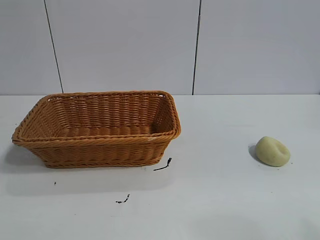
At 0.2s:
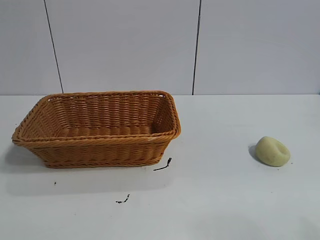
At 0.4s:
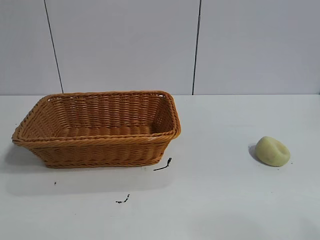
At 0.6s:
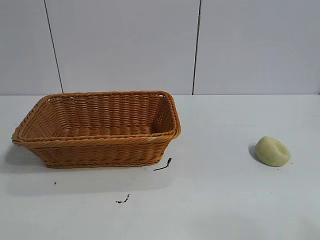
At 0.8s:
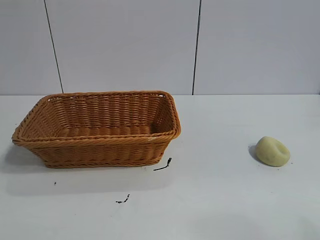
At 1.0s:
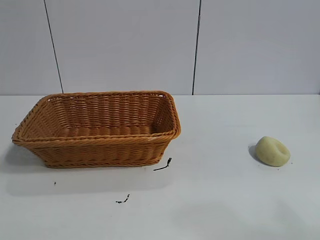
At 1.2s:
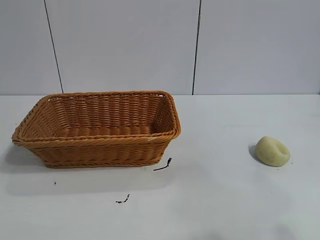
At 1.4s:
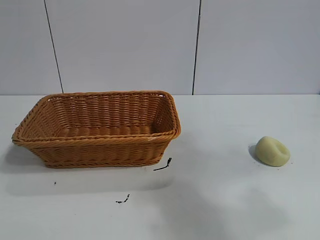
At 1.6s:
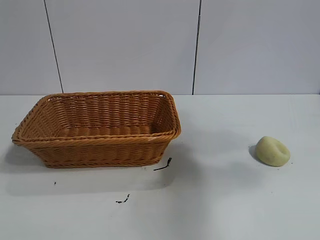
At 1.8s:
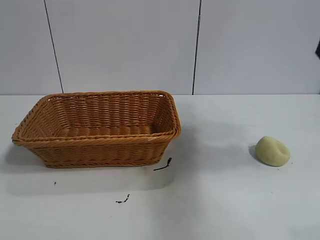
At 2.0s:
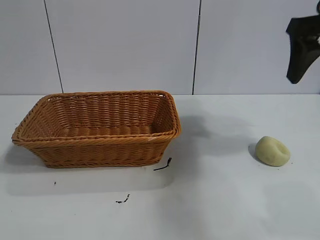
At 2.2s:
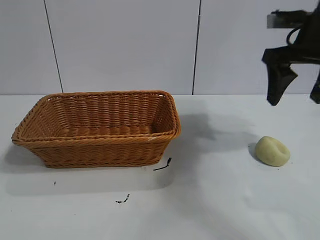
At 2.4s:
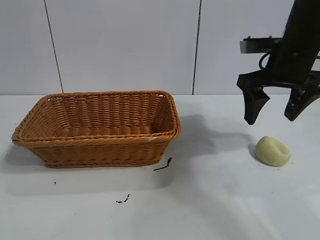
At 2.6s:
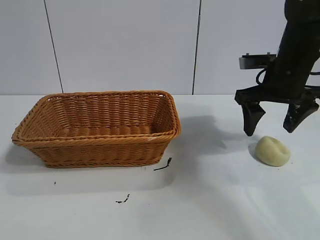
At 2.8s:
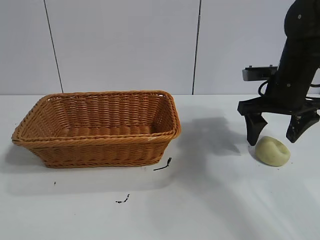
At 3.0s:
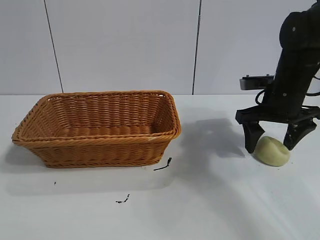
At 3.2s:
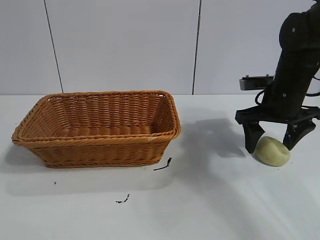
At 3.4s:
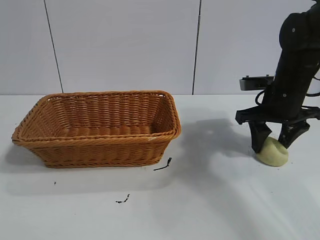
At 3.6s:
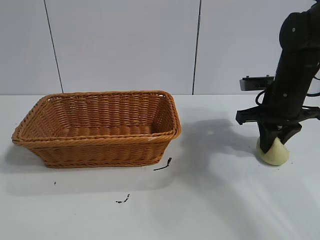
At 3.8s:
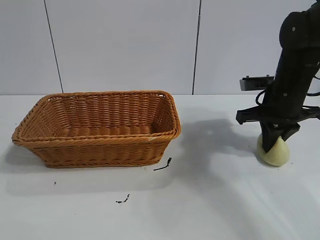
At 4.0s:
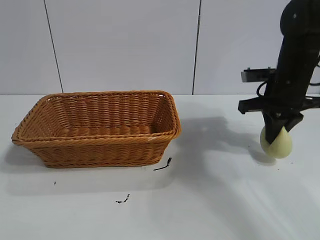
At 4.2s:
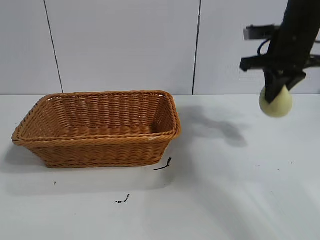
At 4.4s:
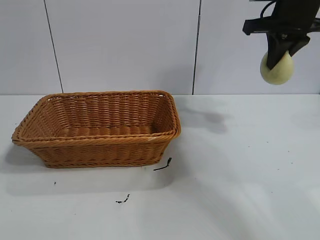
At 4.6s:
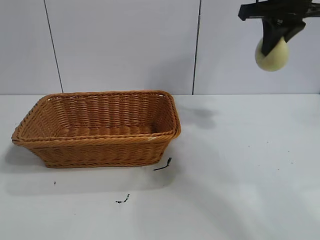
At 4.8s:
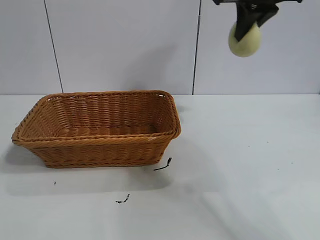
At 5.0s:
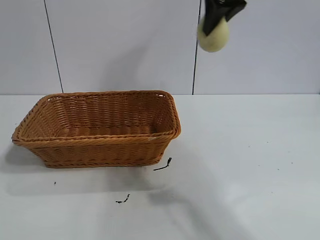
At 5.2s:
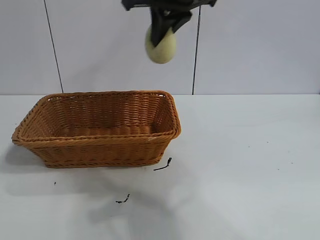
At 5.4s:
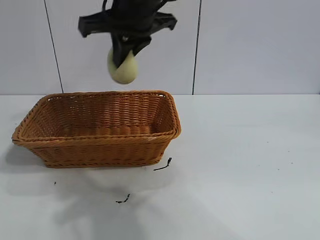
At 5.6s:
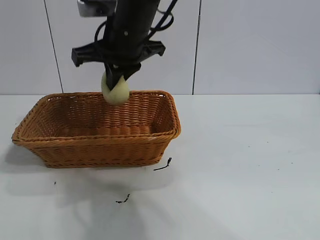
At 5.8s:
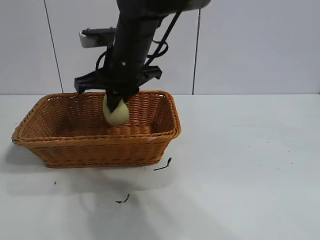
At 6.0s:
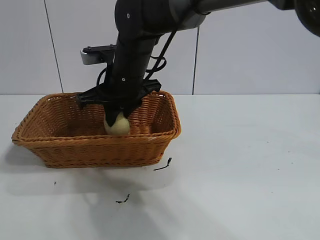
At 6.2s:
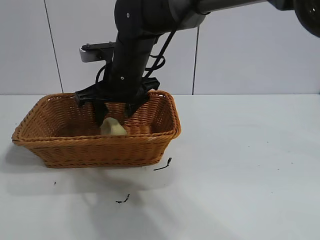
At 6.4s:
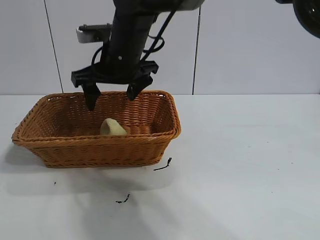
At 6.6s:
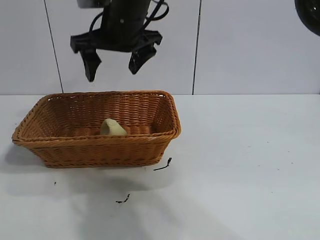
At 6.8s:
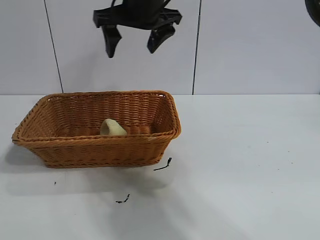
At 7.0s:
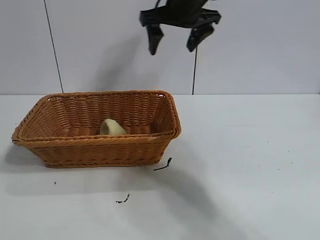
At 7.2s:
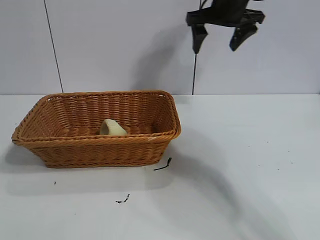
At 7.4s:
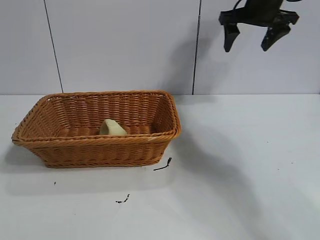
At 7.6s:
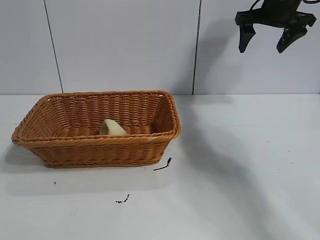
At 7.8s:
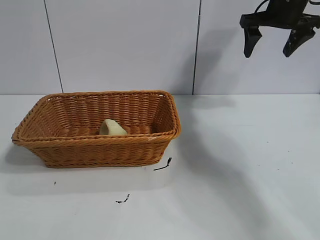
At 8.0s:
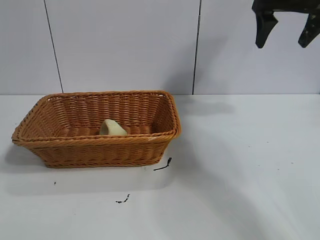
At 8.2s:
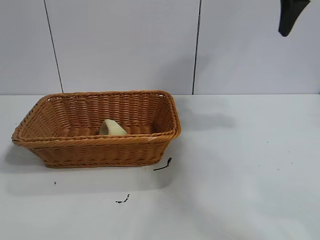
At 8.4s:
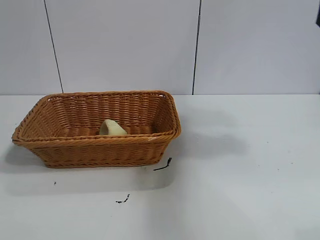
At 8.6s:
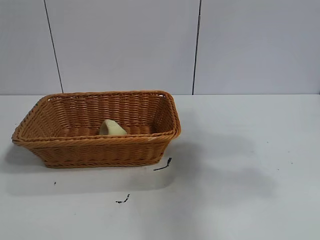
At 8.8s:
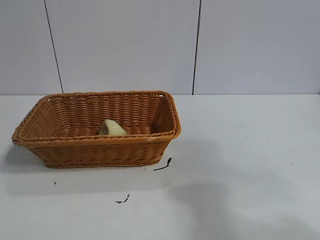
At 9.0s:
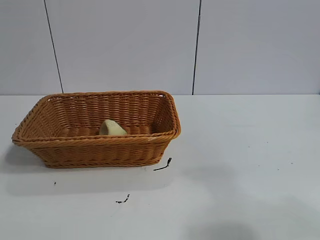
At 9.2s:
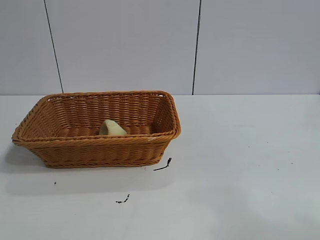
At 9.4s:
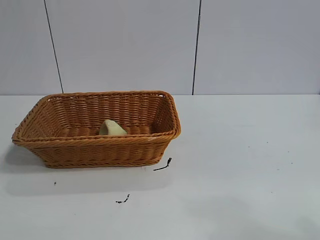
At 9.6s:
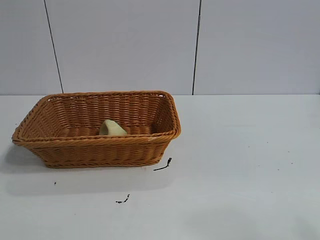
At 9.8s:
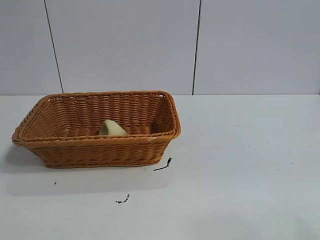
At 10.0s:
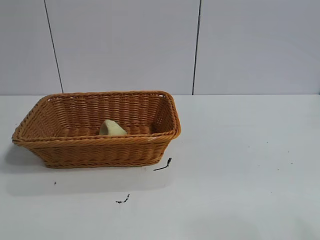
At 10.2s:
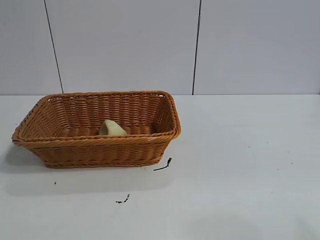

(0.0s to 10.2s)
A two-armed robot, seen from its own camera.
Task of the whole recording: pick up the egg yolk pastry and put it into the basket.
Step, 1.0s - 3.8s: Grasp egg yolk pastry with right gripper.
Step, 4.0s - 6.2s: Place the egg yolk pastry in the basket with right gripper.
